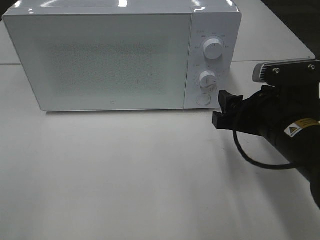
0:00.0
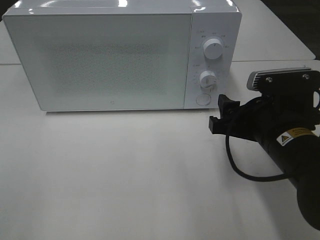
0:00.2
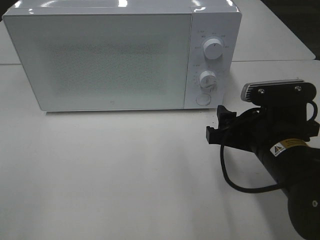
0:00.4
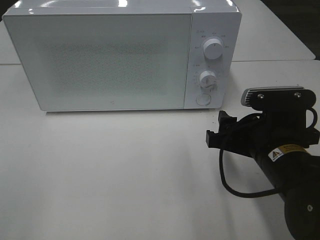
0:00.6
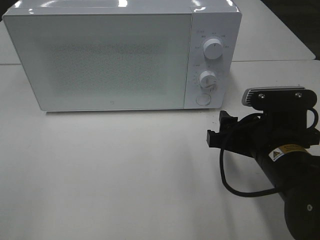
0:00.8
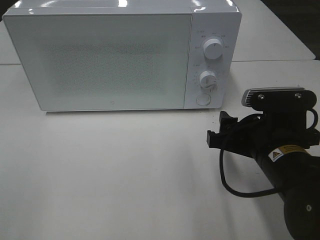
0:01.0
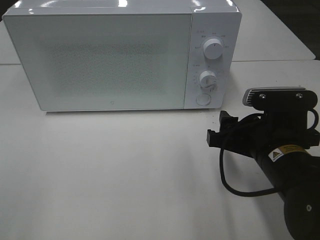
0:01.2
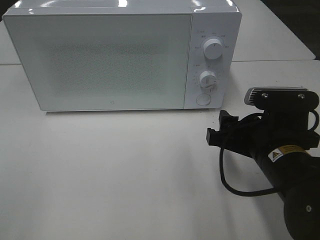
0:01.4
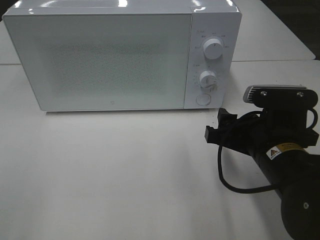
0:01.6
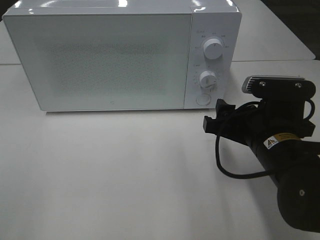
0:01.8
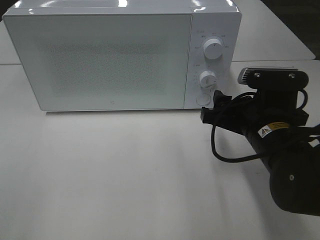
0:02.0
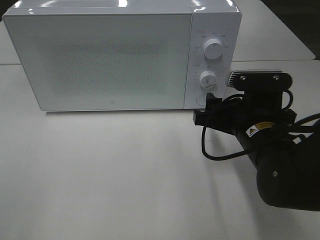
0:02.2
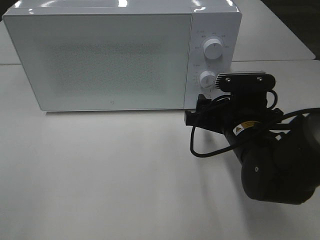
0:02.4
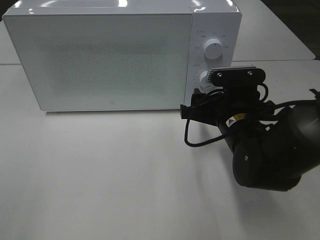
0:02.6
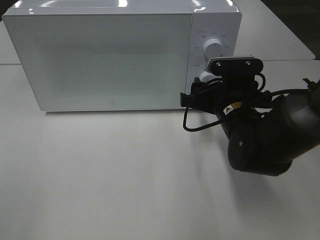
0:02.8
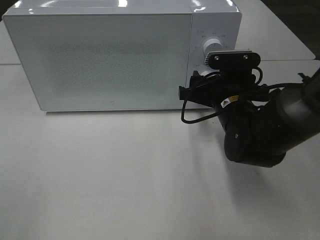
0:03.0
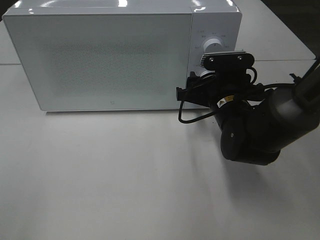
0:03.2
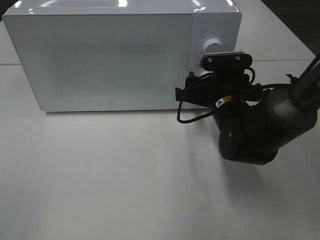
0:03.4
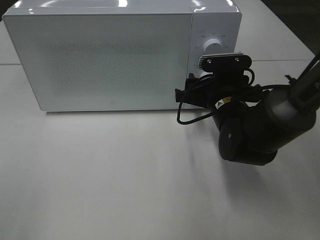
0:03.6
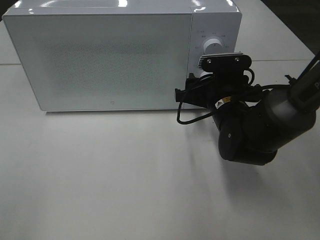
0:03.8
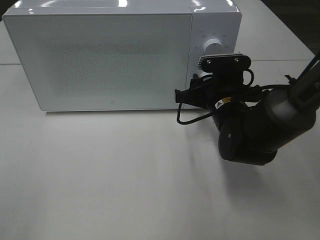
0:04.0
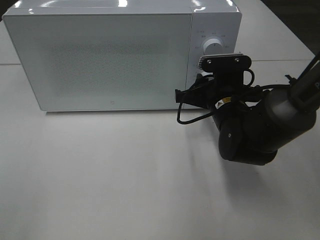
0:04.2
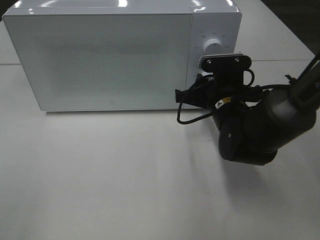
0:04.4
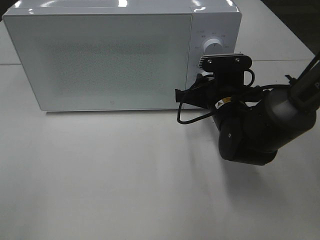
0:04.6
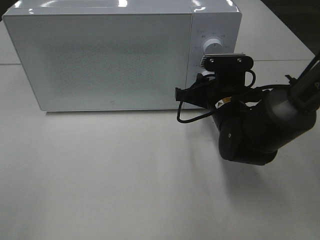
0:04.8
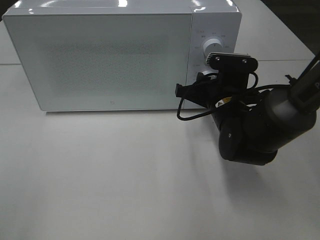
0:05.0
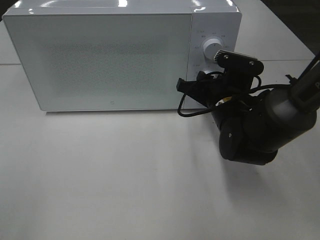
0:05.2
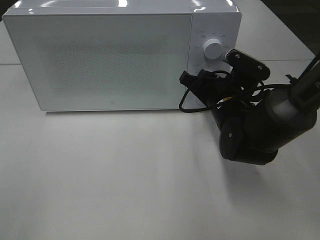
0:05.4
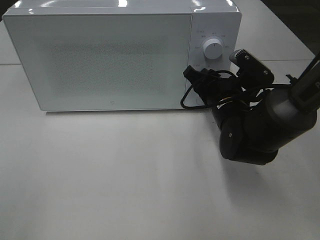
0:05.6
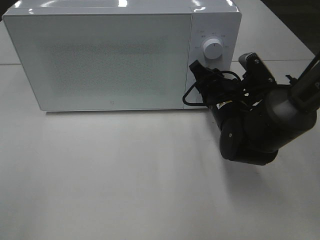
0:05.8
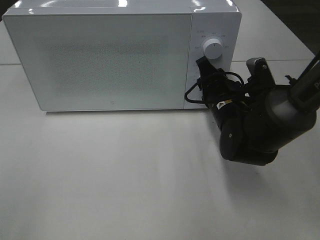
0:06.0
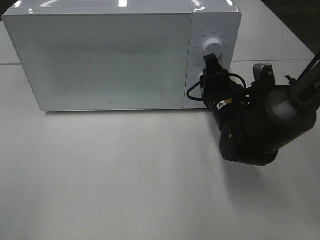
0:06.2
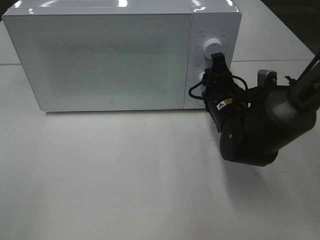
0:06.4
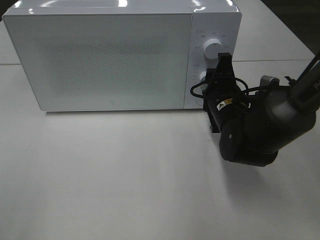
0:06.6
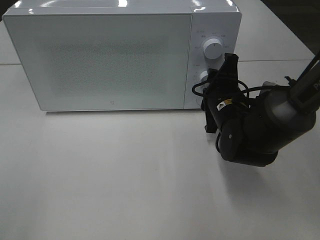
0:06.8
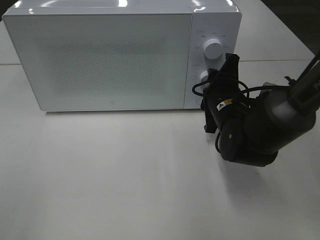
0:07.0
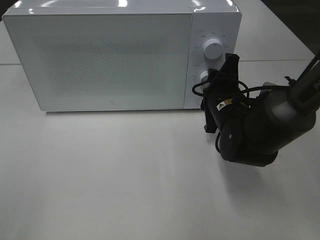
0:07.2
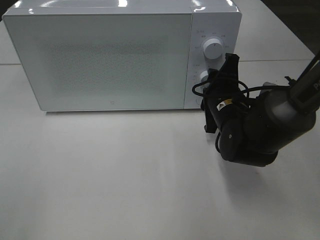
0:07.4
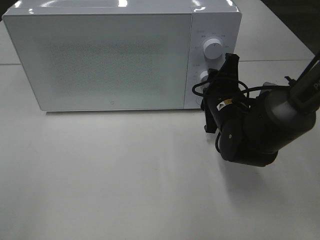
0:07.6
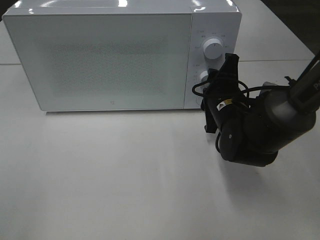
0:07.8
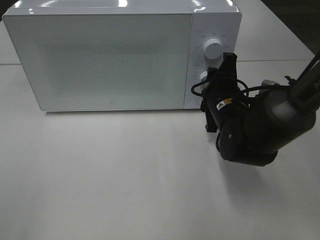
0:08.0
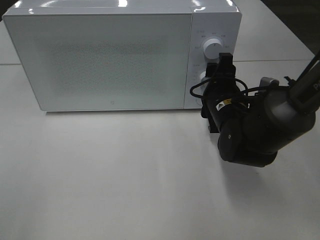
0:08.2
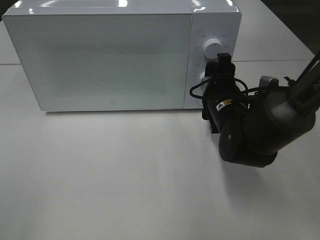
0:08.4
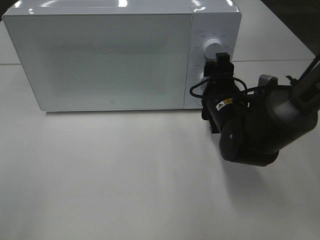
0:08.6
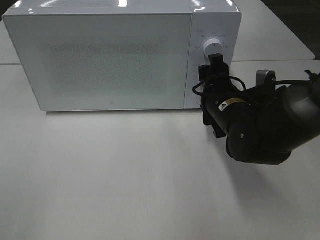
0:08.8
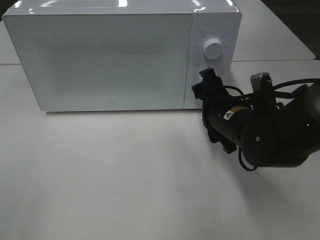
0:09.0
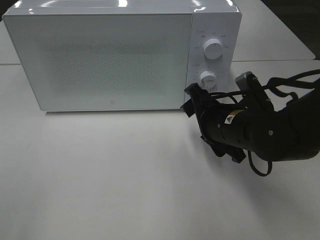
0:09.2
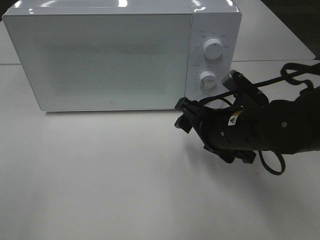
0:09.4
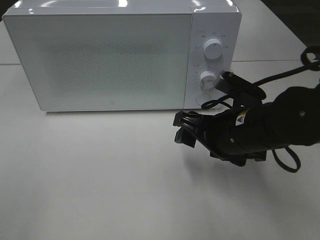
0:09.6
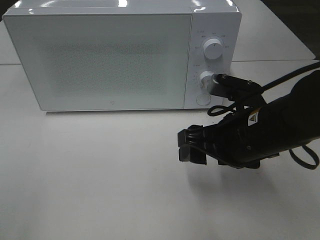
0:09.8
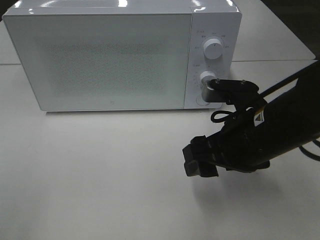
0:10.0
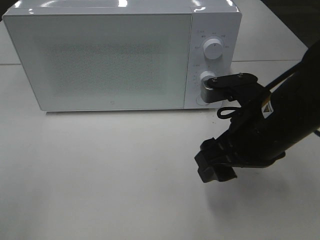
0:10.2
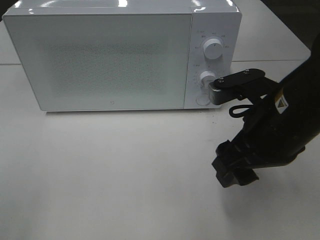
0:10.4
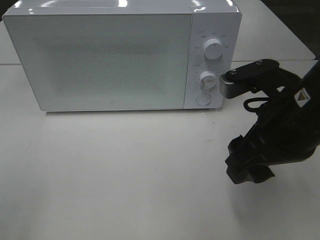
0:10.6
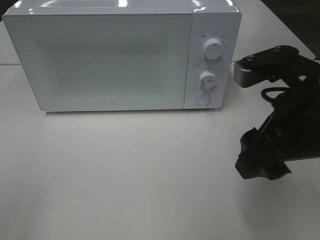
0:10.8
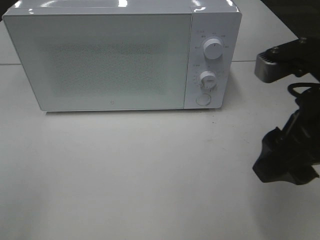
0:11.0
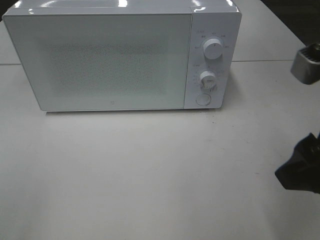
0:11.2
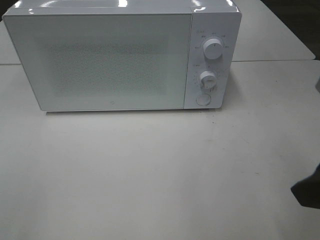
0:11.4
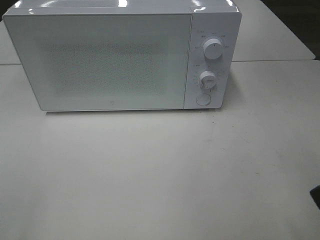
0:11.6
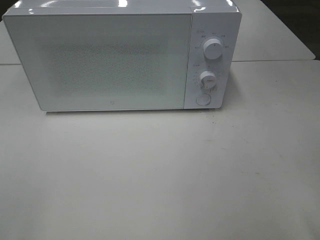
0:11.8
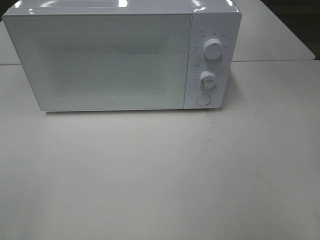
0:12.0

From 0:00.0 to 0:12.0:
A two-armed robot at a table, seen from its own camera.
Task of the whole recording: Heat Sandwich.
Step, from 0:00.0 to 0:08.4: Right hand: twist timer button.
From 0:00.0 to 0:01.6: The grippers move only a little.
From 0:01.6 to 0:03.0: The right gripper is displaced forward by roughly 10 cm.
From 0:03.0 to 0:04.4: The right gripper closes its fingers.
From 0:07.6 to 0:09.0: The right gripper opens up.
From 0:09.0 to 0:10.4: The right gripper moves upward and backward, about 15 cm.
From 0:10.4 to 0:12.0: The right gripper heads backward, to the right and upward, covering some 20 cm.

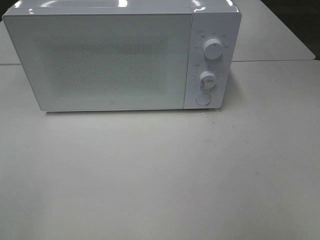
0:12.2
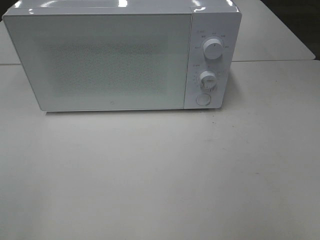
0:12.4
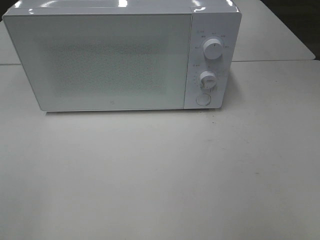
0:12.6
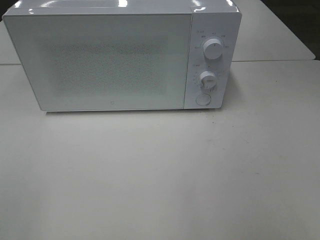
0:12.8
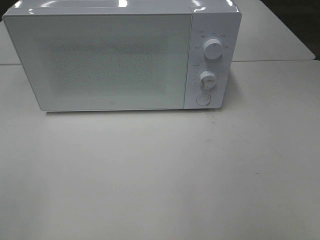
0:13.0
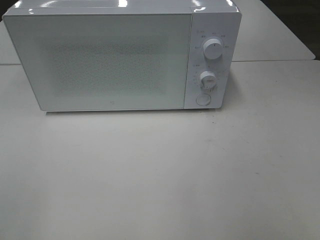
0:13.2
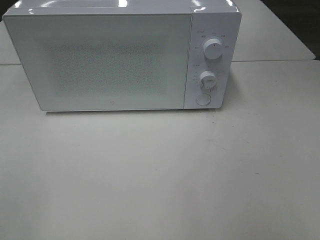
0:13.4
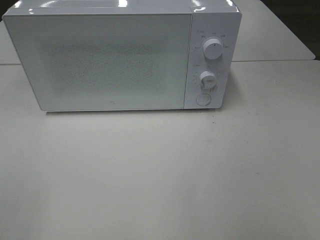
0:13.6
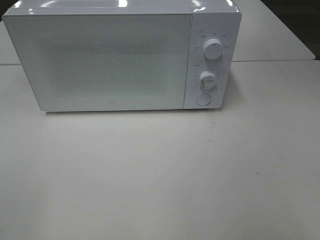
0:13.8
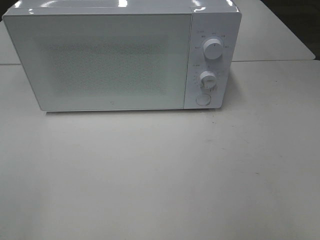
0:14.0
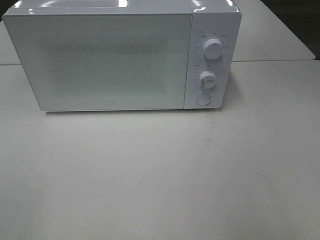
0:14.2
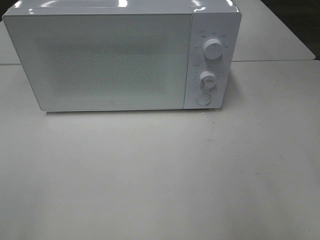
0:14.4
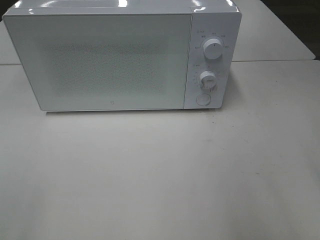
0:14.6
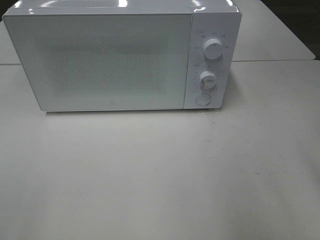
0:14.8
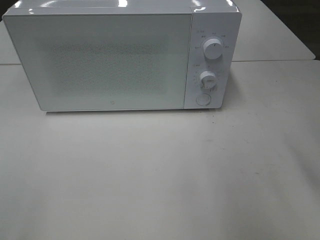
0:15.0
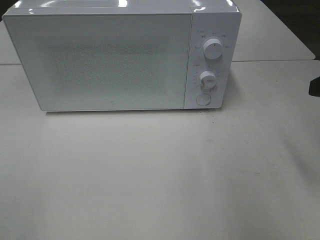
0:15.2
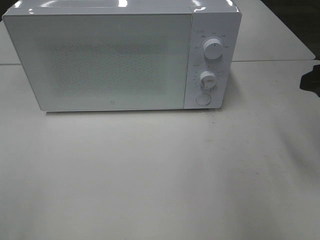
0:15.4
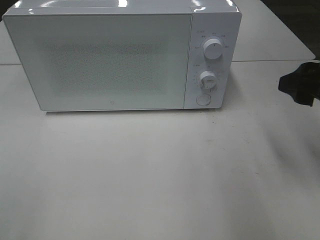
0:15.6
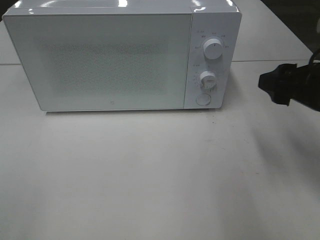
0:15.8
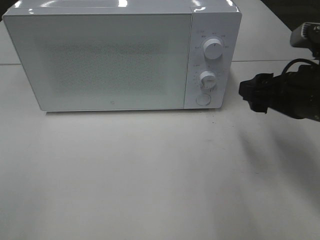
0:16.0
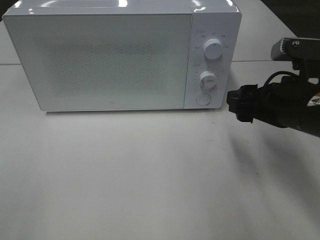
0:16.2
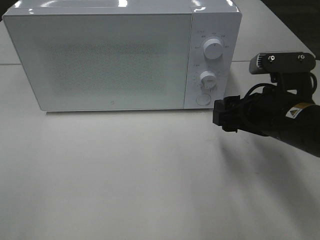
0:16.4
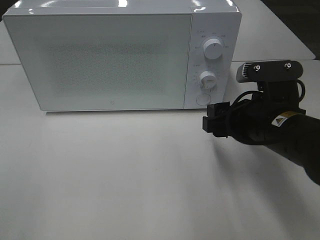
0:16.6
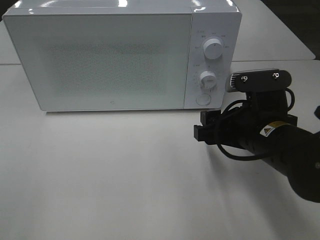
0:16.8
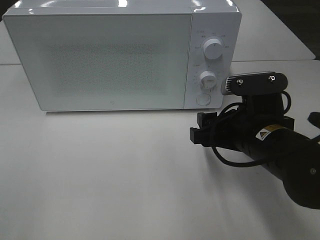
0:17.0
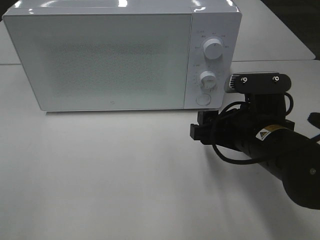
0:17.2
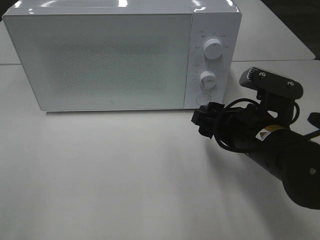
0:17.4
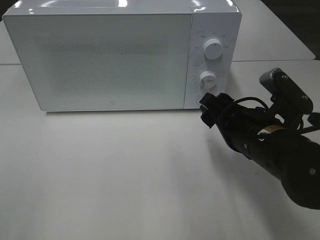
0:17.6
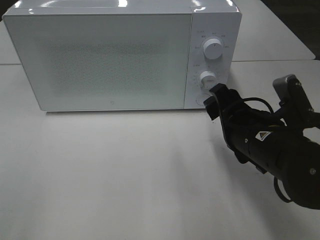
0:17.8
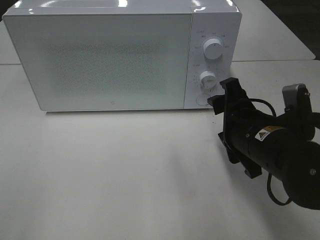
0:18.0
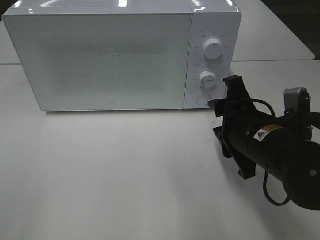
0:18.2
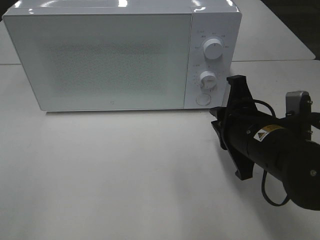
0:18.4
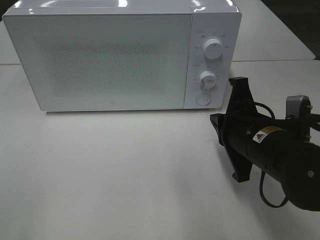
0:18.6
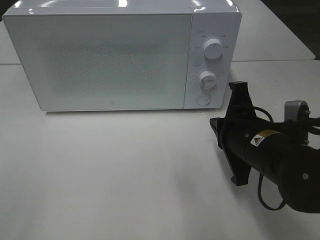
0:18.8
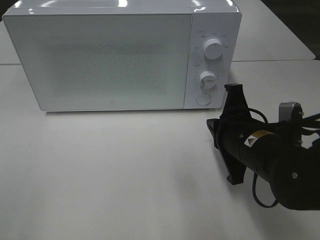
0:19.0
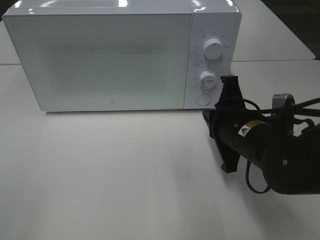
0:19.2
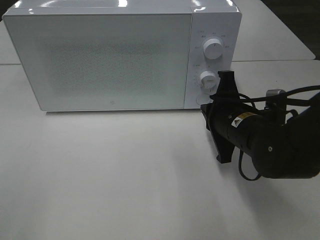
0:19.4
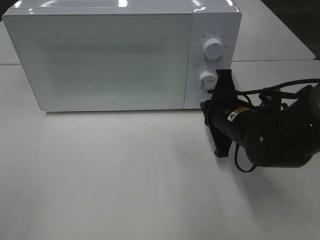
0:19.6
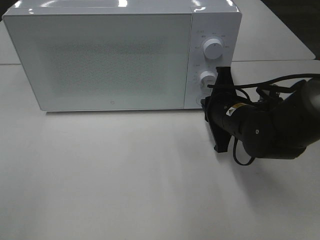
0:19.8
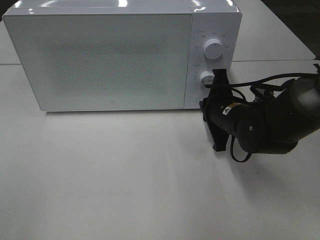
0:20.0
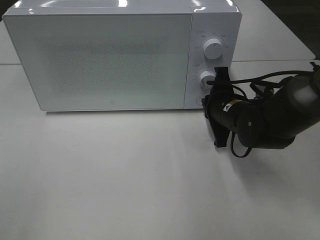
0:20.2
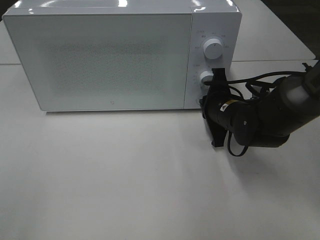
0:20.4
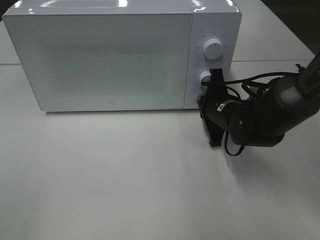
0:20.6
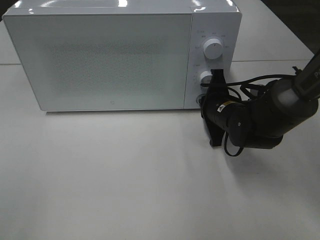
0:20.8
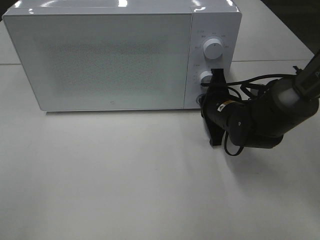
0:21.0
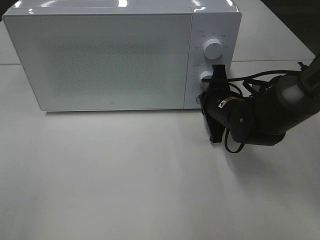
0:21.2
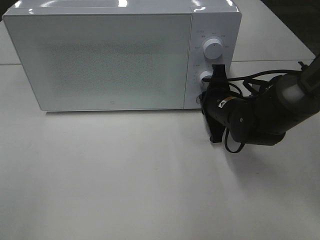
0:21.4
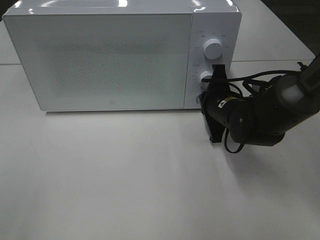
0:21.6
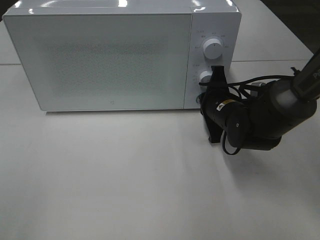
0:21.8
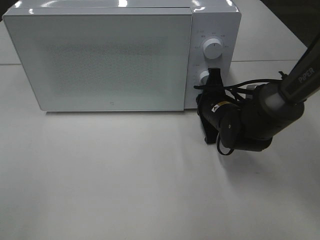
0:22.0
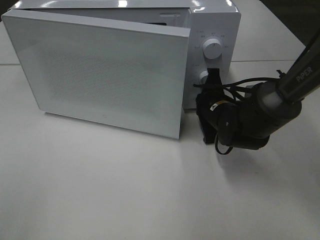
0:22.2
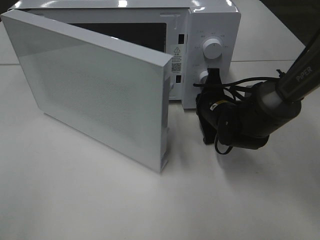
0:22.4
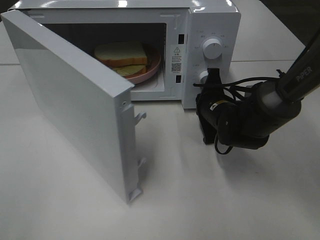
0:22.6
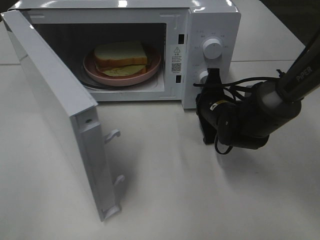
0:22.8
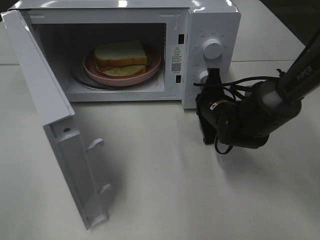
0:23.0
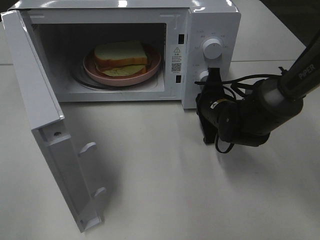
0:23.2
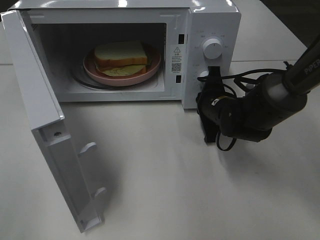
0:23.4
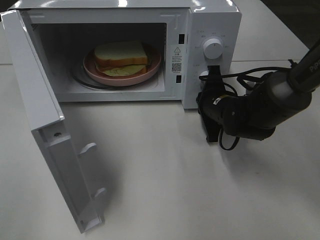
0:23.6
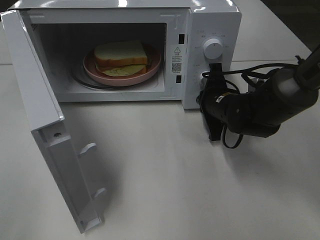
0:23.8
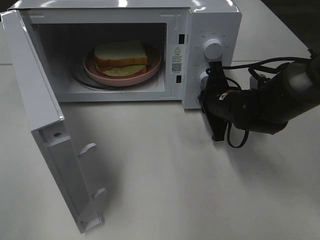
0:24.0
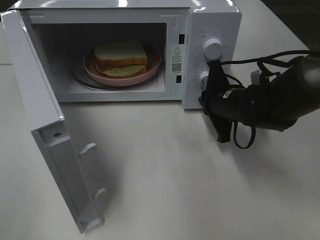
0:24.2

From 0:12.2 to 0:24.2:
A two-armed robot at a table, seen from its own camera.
Task of the whole recording: Heat Sandwich.
From 0:15.2 to 0:16.6: The right gripper shifts approximately 15 cm to the left and downward.
From 0:18.2 to 0:19.8: The right gripper moves forward, about 10 cm, and closes.
From 0:19.8 to 0:21.2: The grippers make only small movements.
